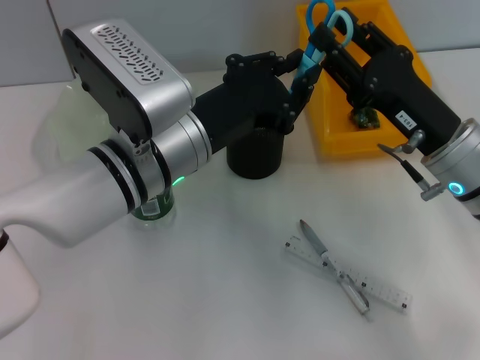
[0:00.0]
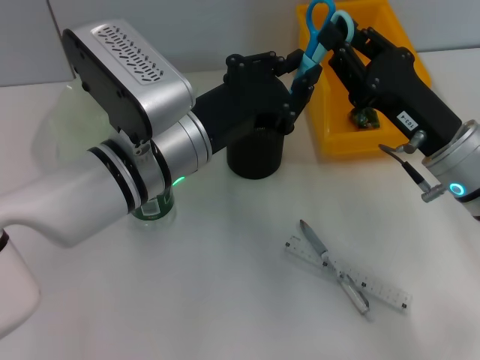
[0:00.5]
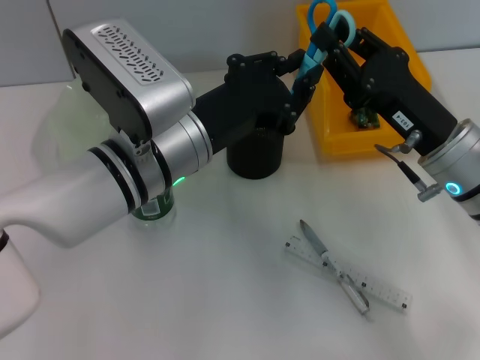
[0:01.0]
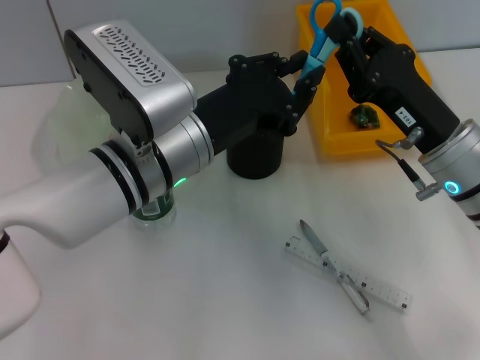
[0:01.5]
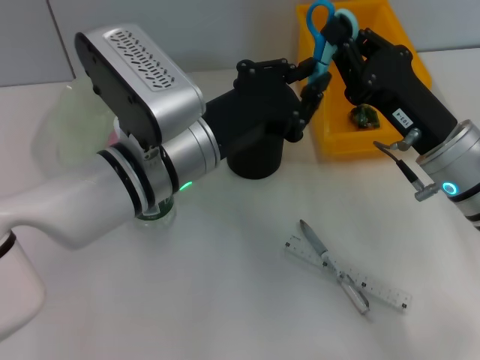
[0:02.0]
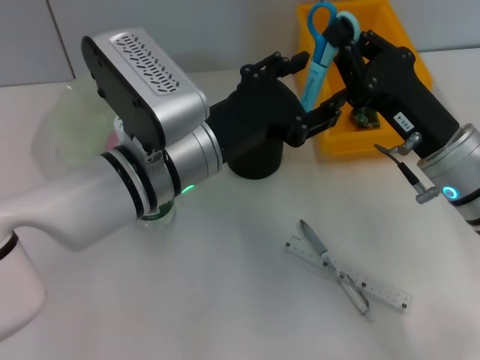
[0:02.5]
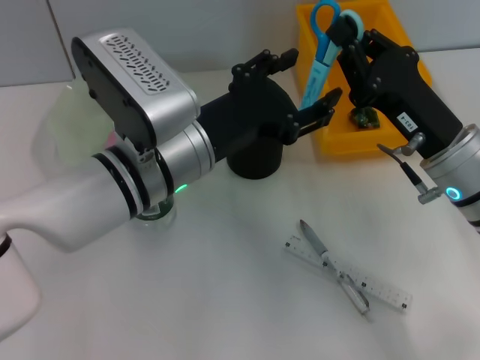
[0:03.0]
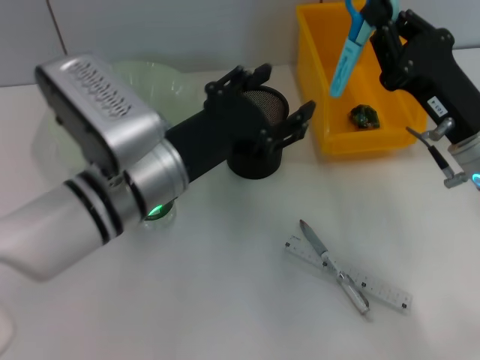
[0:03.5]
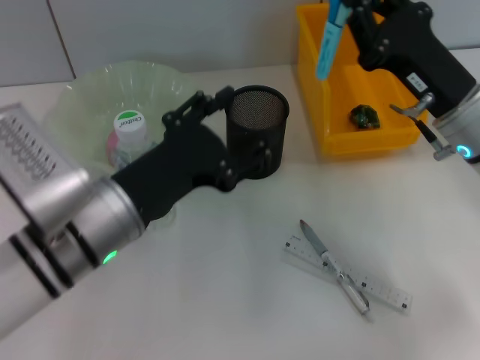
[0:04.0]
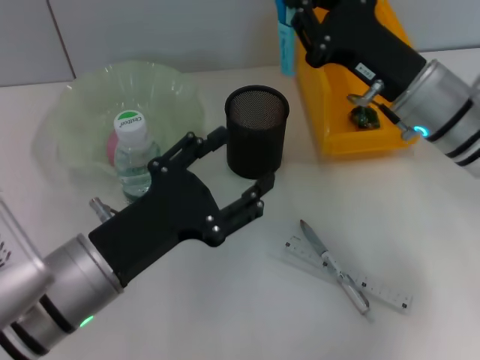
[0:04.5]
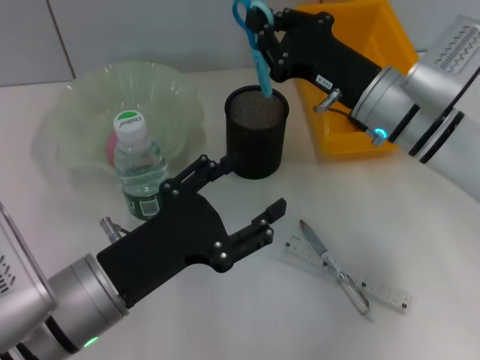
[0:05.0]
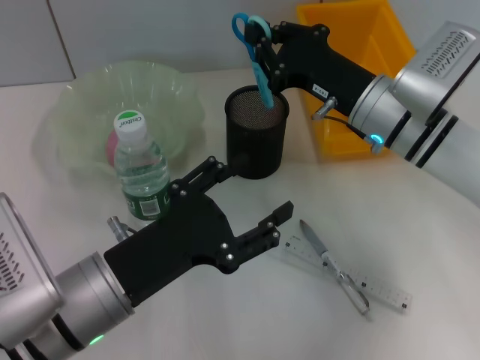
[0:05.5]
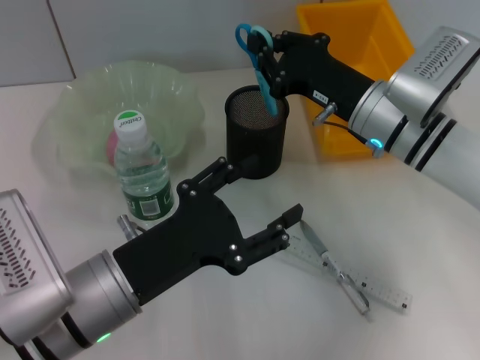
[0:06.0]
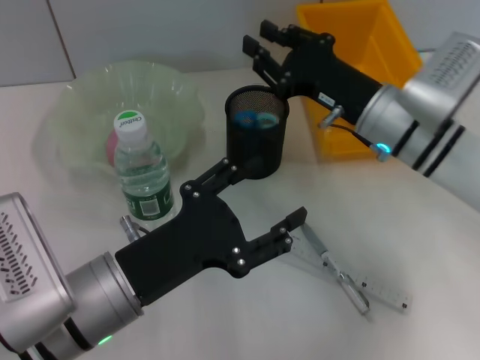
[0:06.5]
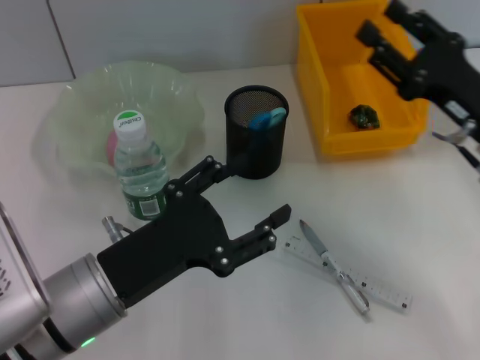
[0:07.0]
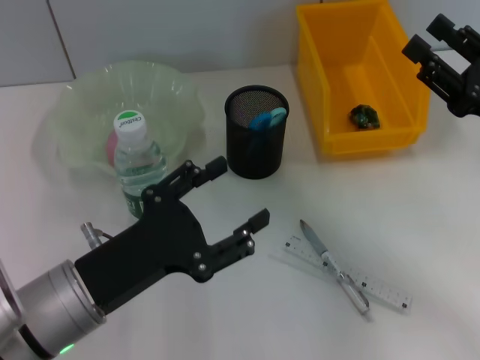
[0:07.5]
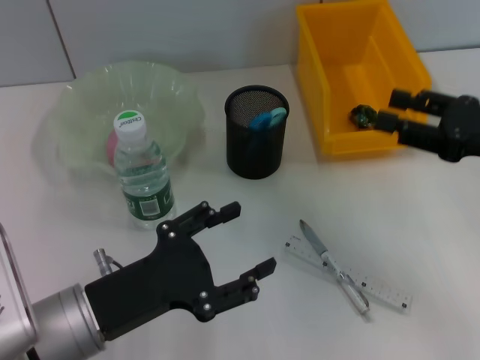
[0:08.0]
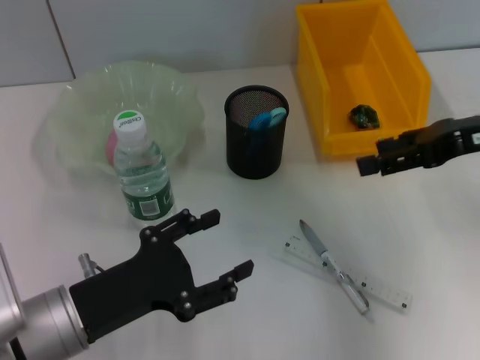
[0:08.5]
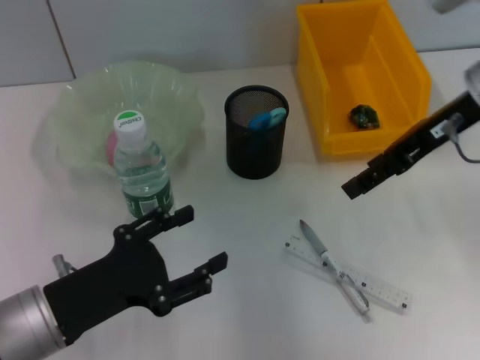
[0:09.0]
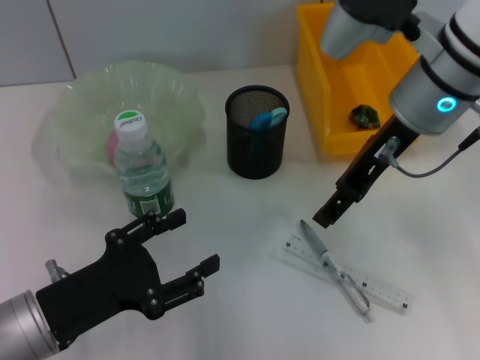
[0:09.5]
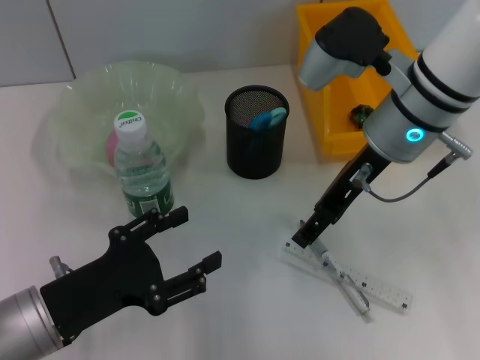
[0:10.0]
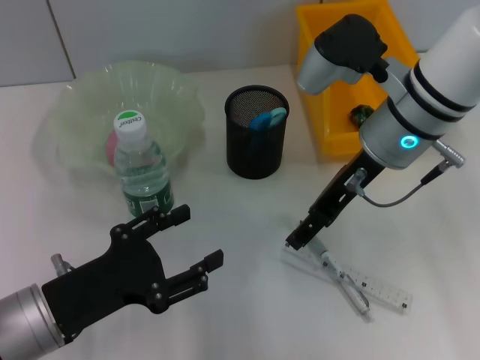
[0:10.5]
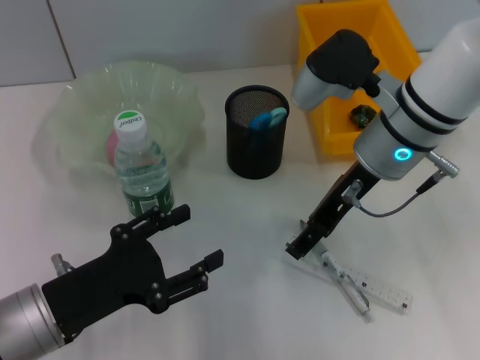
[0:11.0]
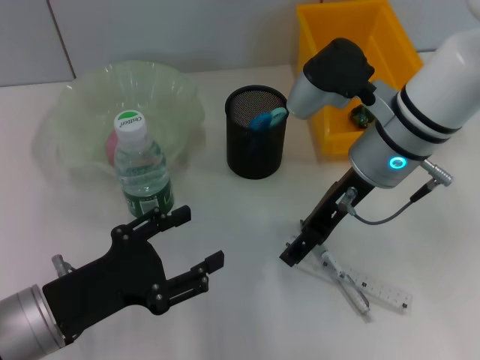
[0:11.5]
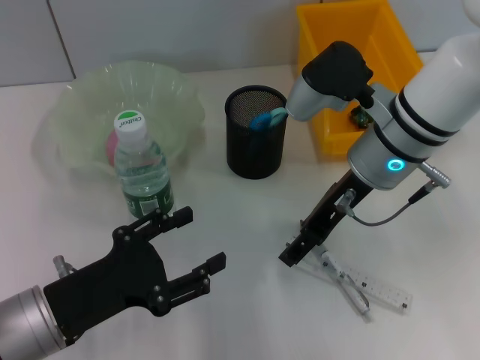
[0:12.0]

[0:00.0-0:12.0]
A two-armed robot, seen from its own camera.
Step, 0.0 to 2.5 s: Pass the blue utility knife from the left hand to the right hand.
Step, 3.0 to 6.5 s: Place the blue scissors into the pen holder with the right hand.
0.0 to 2.0 s: The right gripper closes up.
2.0 to 4.0 s: The left gripper moves to the left, about 5 cm, and opens.
4.0 to 6.0 s: The left gripper moves backward, roughly 5 cm. The right gripper moves to the left, some 5 cm.
6.0 to 8.0 s: The right gripper travels to the right and backward by about 15 cm, and opens.
8.0 to 10.0 s: The right gripper travels to the left and forward by some 20 cm.
10.0 to 12.0 s: There are only small adjustments of the grippers.

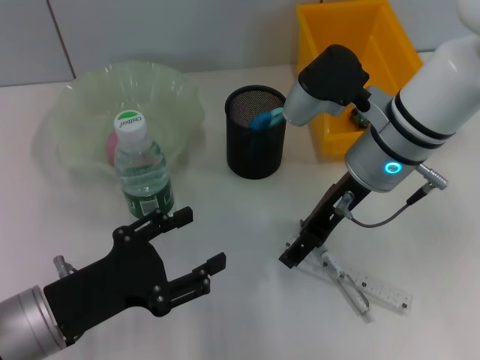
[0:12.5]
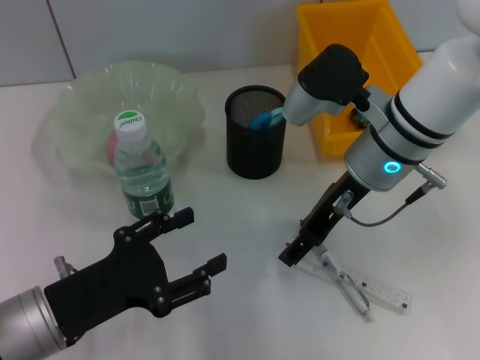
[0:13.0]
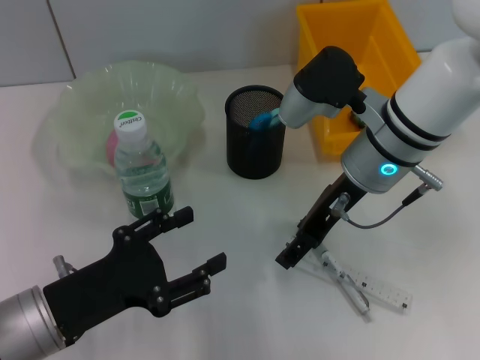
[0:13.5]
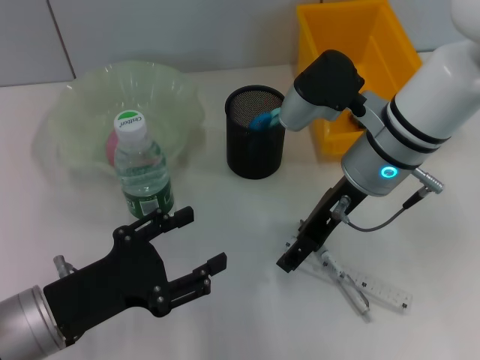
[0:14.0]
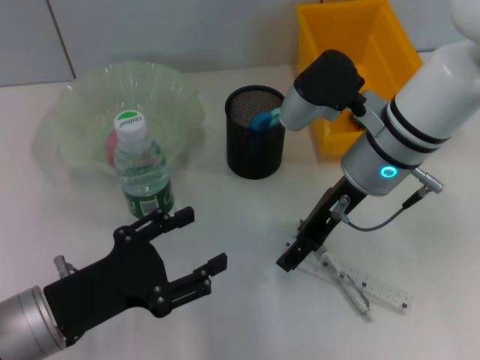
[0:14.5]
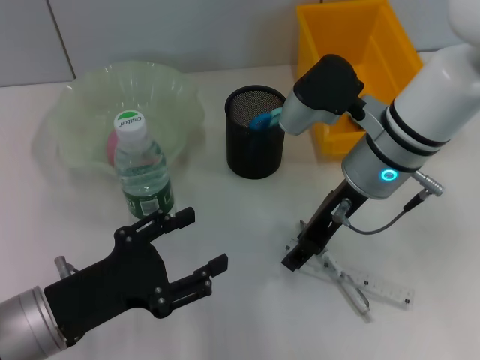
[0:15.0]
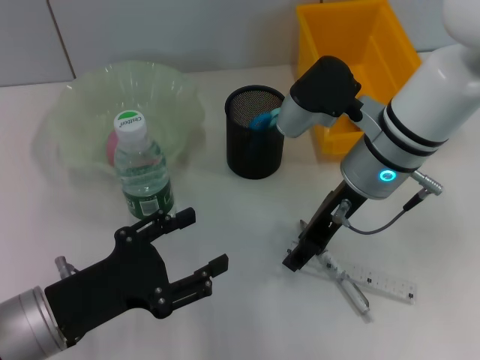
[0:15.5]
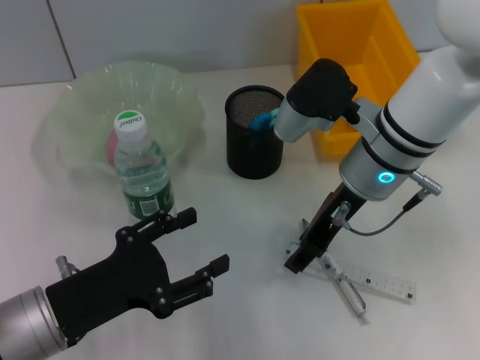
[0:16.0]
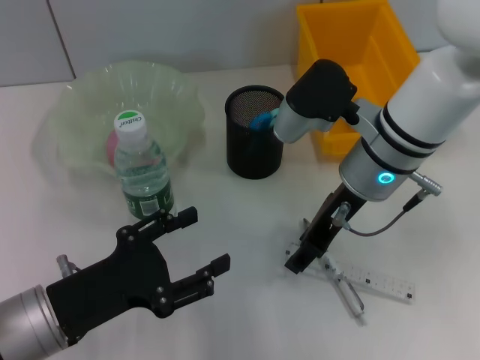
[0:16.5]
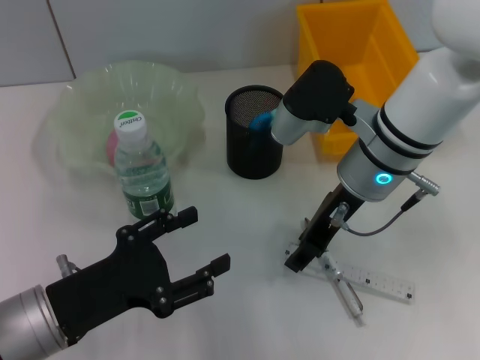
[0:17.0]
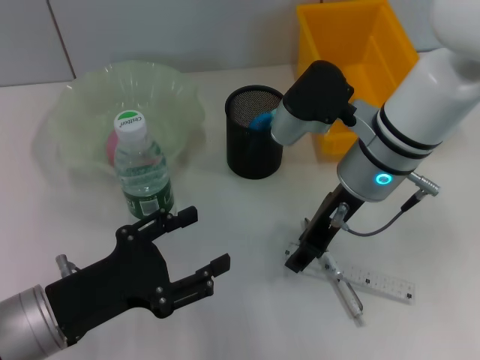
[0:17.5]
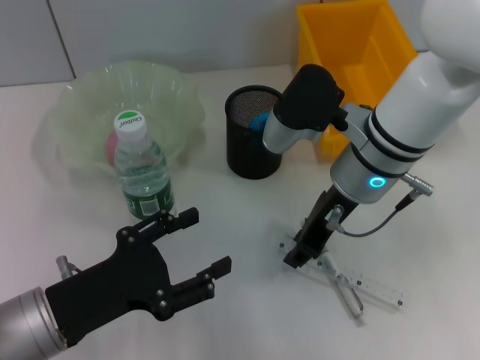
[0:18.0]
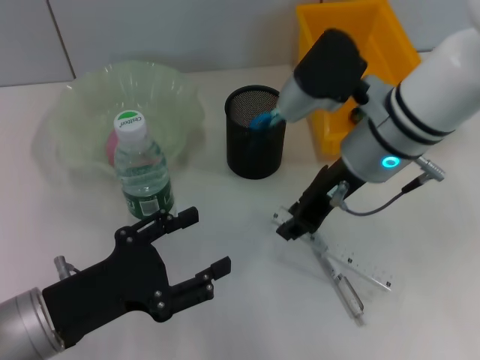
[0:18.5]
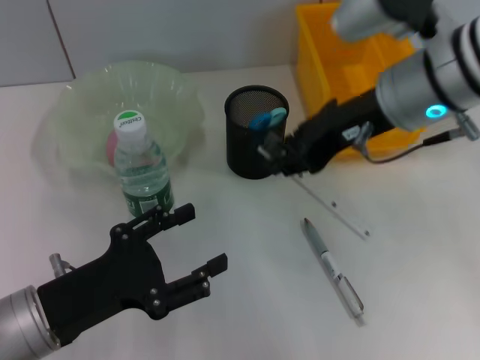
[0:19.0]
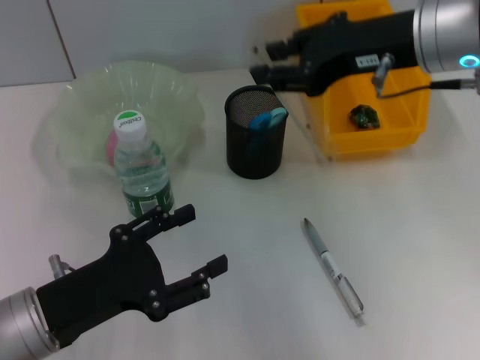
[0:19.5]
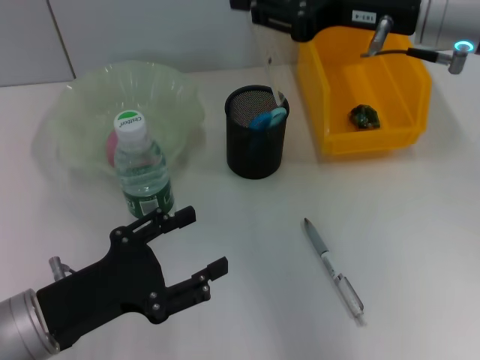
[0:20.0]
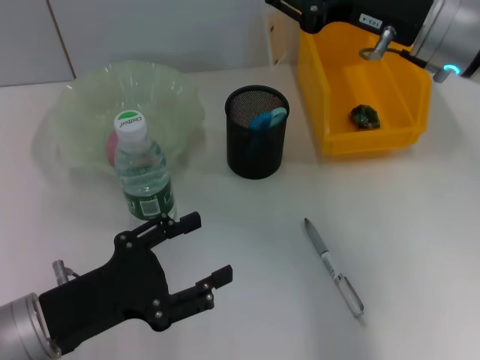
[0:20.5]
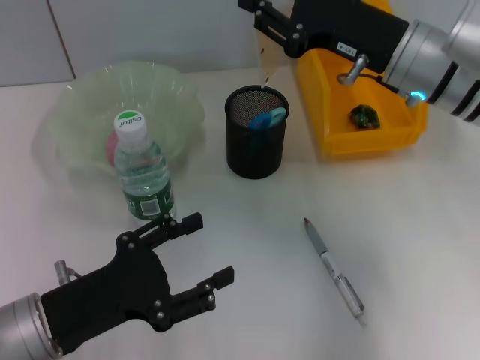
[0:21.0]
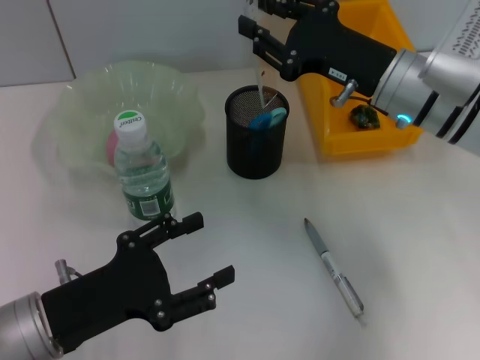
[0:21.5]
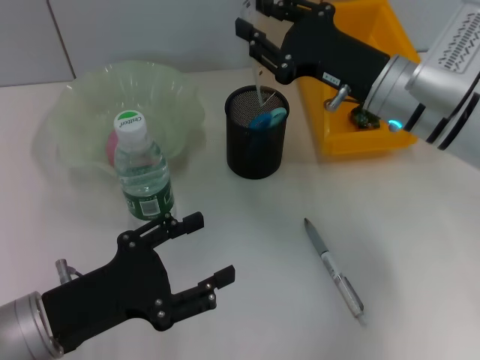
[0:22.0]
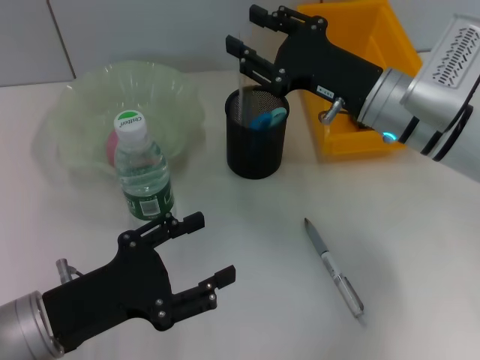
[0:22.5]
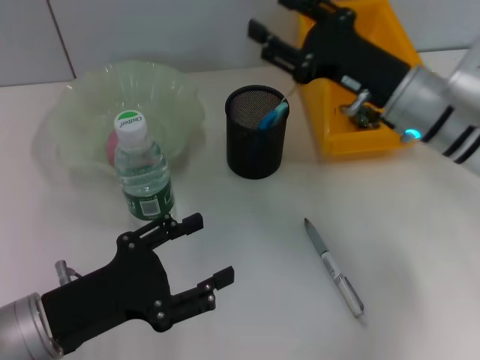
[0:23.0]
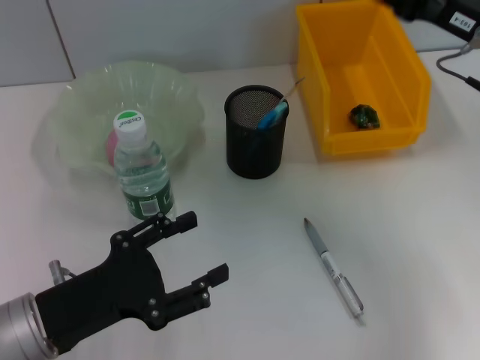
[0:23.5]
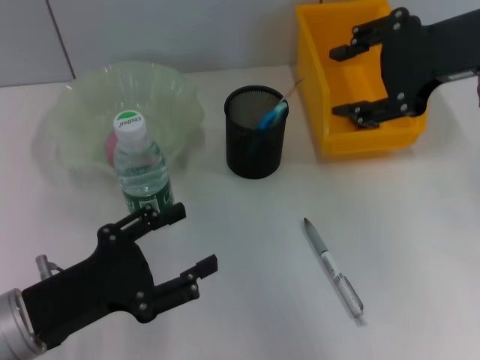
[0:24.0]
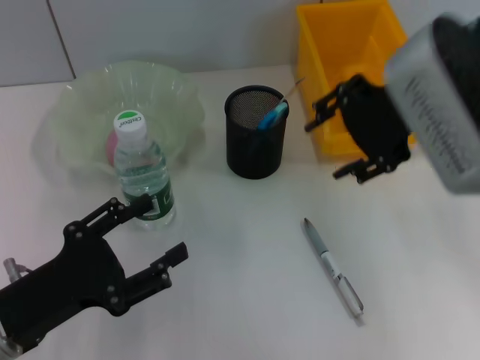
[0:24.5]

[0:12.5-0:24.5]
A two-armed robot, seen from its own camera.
Step, 12.5 to 17.5 s: Grab the ruler with the right hand.
Step, 18.0 to 23.0 s: Place the ruler into the pen holder with the right hand.
12.5 to 16.5 s: Neither gripper changes place.
16.5 to 18.5 s: There are only small adjustments of the grippers.
18.5 to 20.5 s: The right gripper heads to the right, covering about 5 cm.
20.5 to 22.5 s: The right gripper travels downward by approximately 10 cm.
22.5 to 24.5 s: The right gripper goes approximately 15 cm upward.

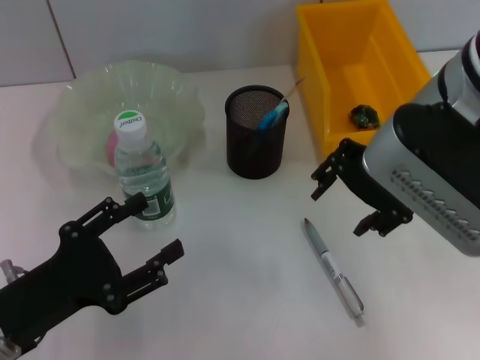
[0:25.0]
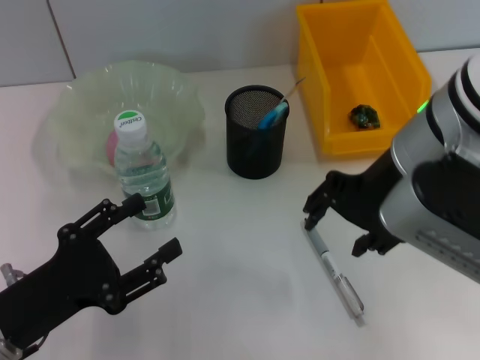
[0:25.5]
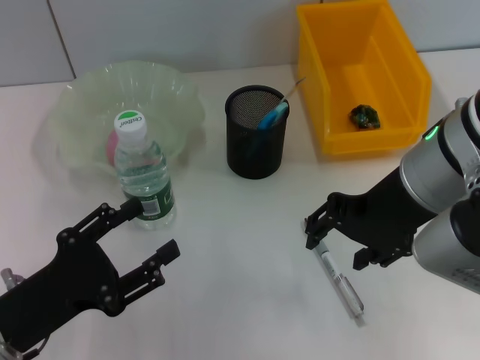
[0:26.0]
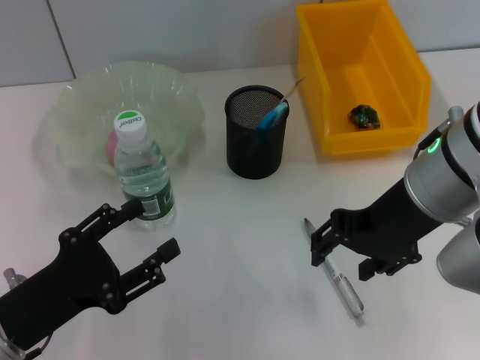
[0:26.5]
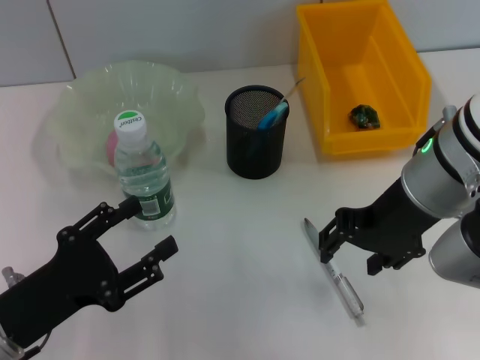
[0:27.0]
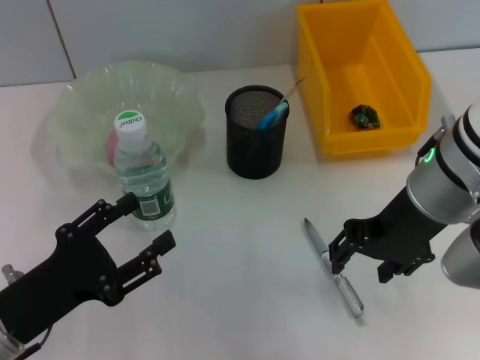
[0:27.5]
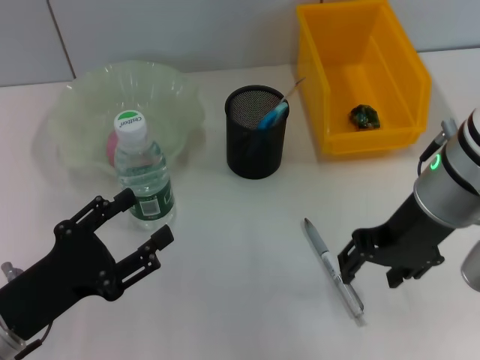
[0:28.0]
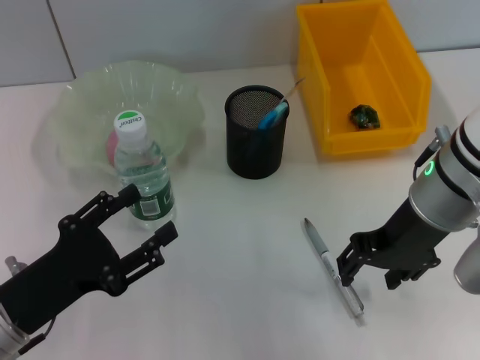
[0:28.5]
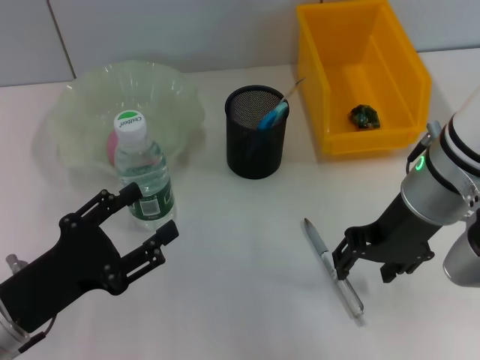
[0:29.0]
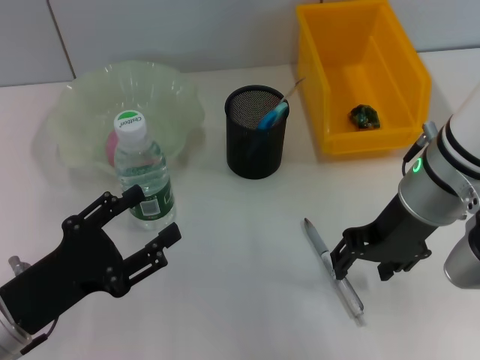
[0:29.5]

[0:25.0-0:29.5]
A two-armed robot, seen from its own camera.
25.0 to 27.0 s: The right gripper moves downward, about 5 cm.
27.0 to 29.5 s: The grippers make only small movements.
